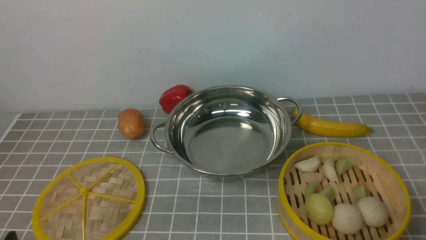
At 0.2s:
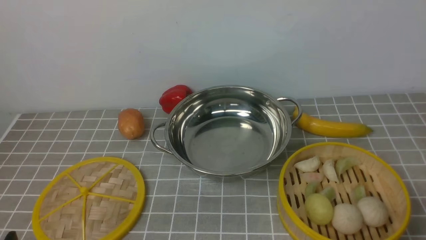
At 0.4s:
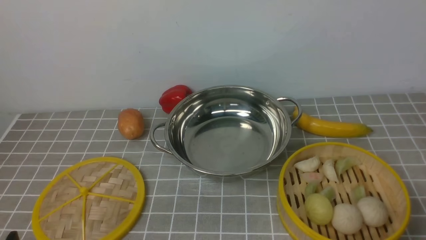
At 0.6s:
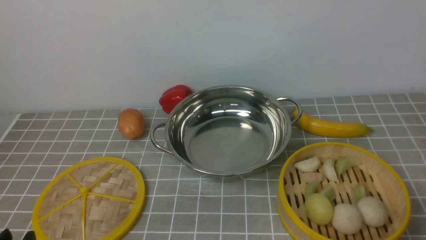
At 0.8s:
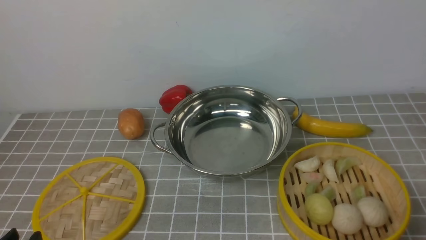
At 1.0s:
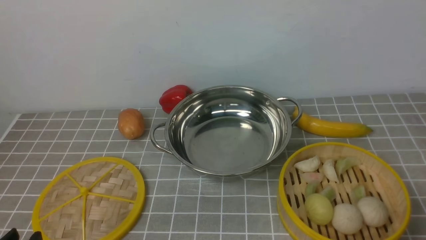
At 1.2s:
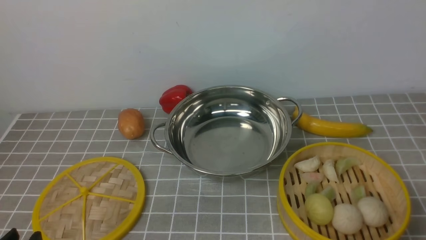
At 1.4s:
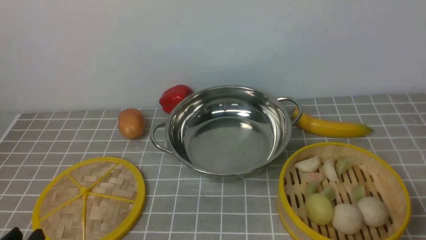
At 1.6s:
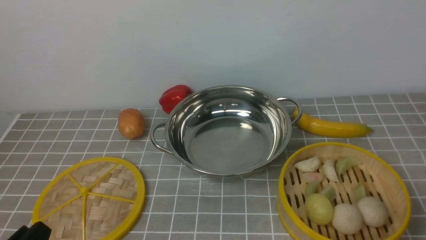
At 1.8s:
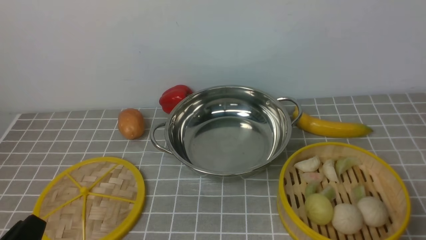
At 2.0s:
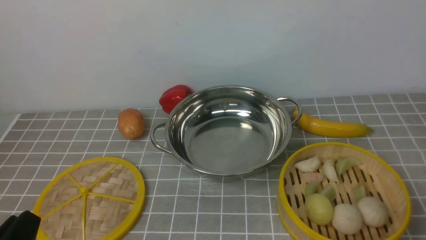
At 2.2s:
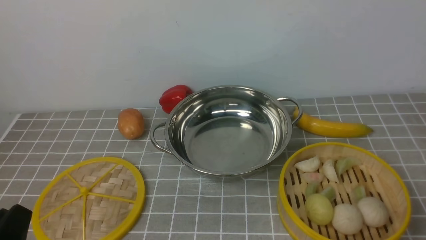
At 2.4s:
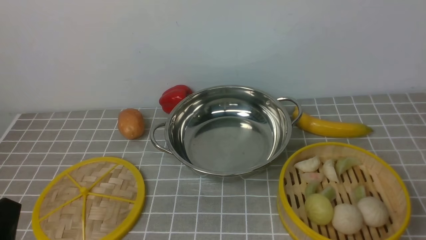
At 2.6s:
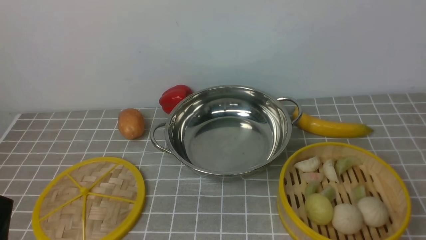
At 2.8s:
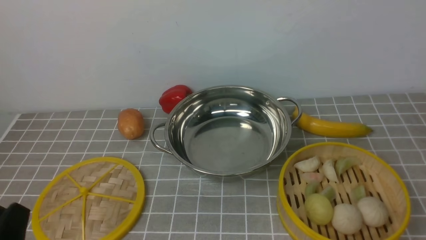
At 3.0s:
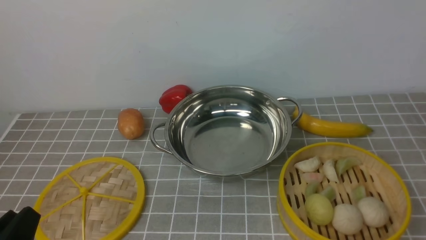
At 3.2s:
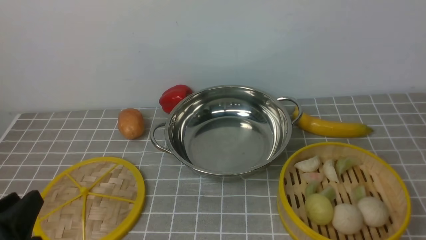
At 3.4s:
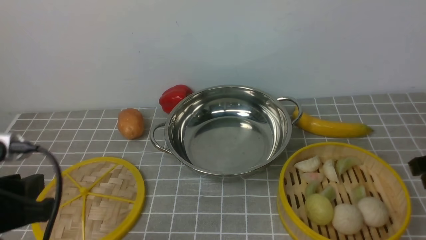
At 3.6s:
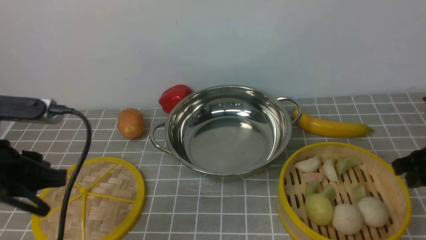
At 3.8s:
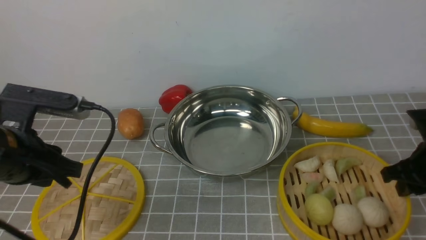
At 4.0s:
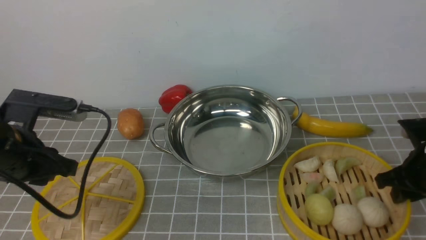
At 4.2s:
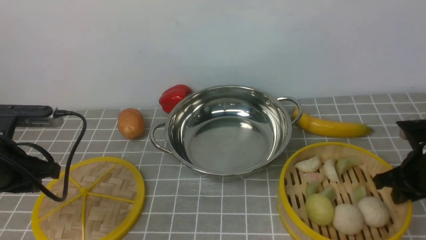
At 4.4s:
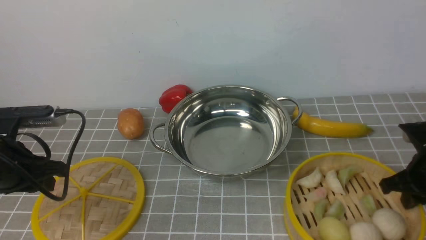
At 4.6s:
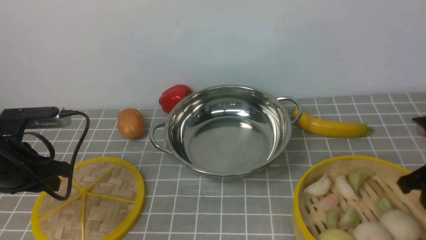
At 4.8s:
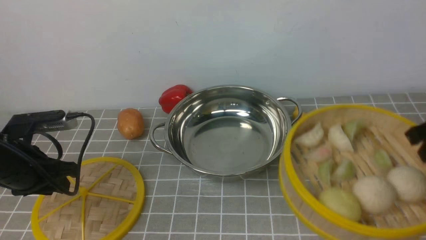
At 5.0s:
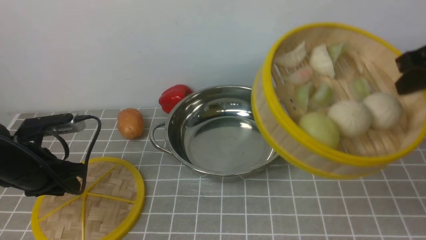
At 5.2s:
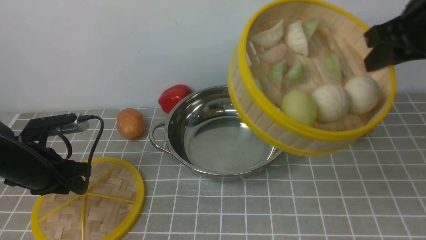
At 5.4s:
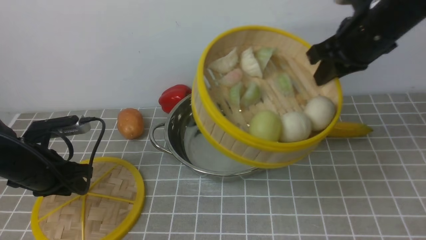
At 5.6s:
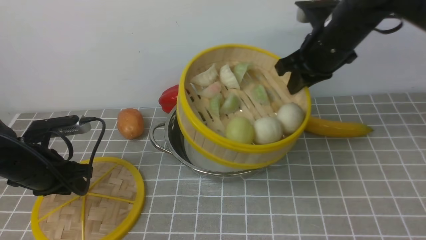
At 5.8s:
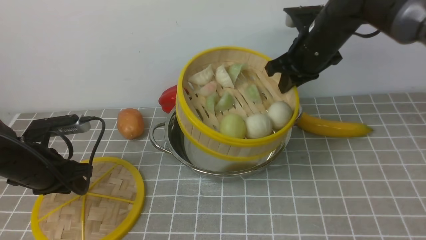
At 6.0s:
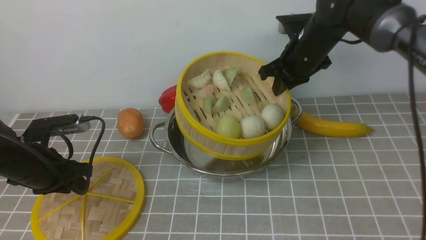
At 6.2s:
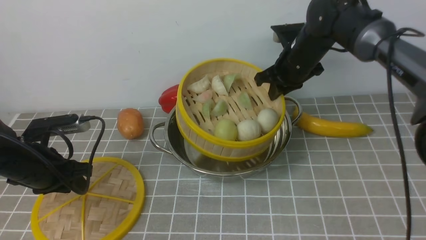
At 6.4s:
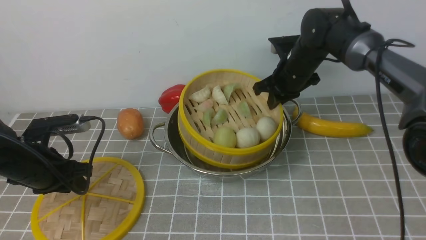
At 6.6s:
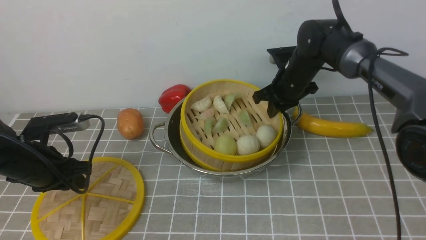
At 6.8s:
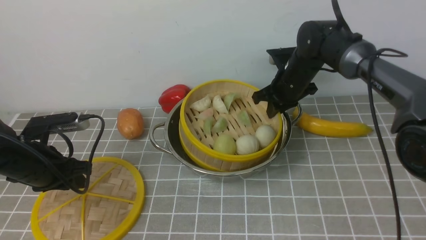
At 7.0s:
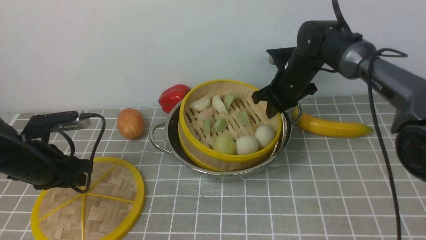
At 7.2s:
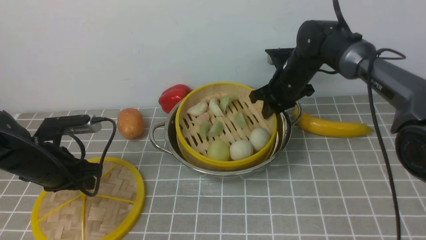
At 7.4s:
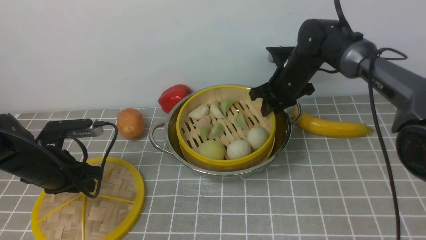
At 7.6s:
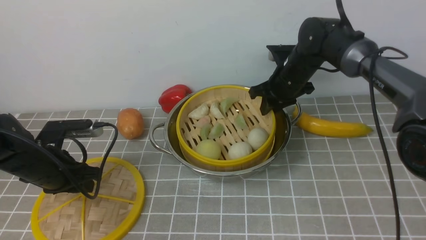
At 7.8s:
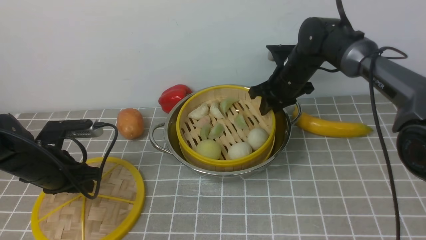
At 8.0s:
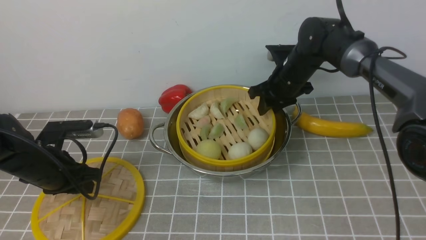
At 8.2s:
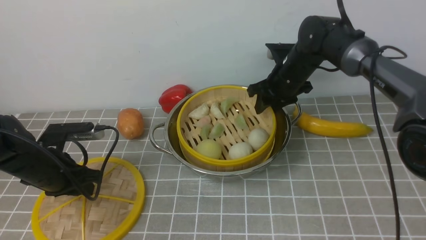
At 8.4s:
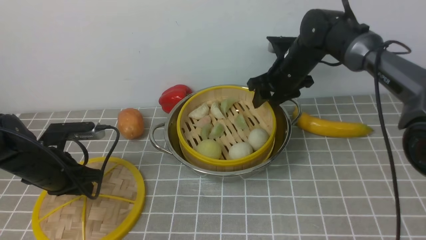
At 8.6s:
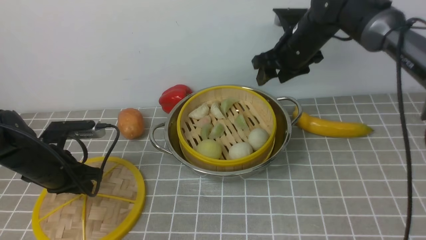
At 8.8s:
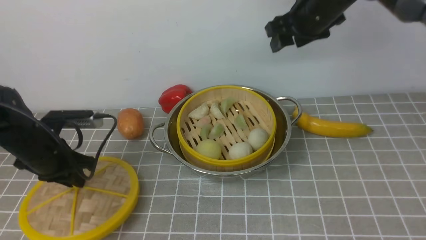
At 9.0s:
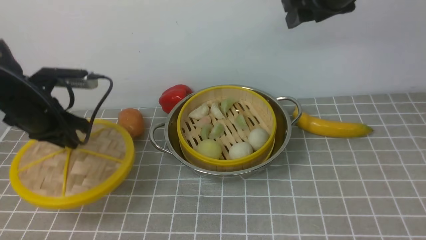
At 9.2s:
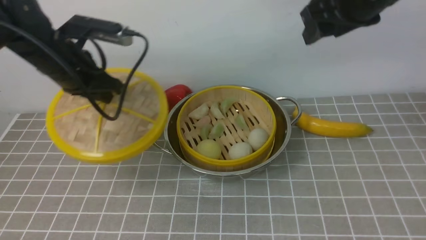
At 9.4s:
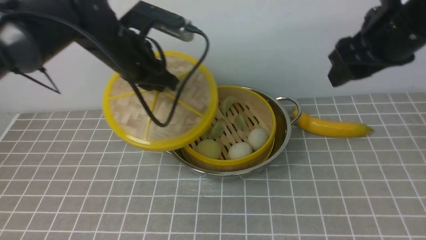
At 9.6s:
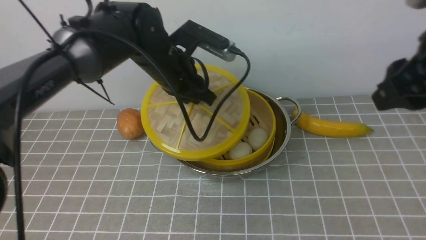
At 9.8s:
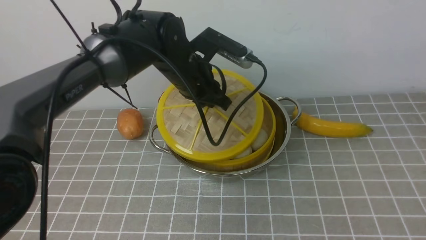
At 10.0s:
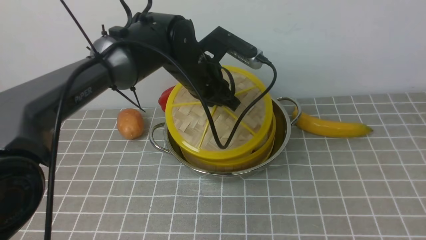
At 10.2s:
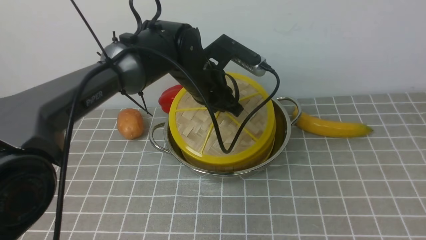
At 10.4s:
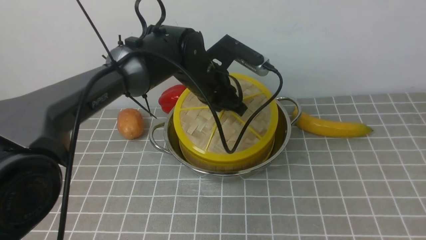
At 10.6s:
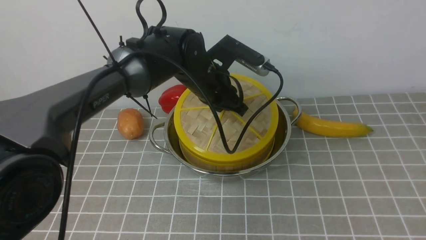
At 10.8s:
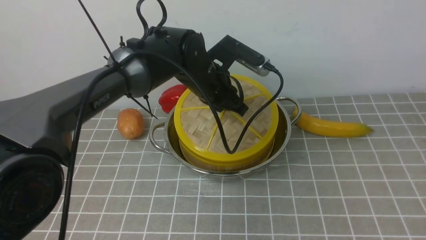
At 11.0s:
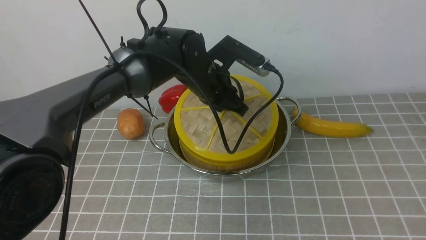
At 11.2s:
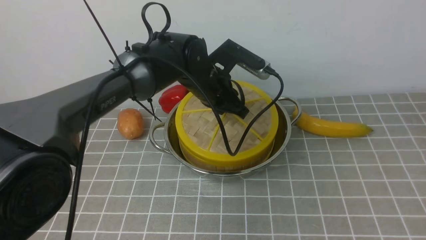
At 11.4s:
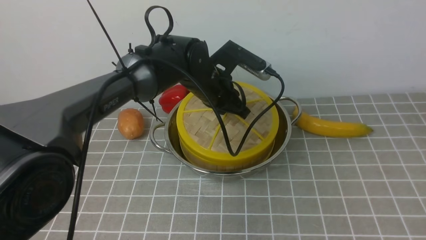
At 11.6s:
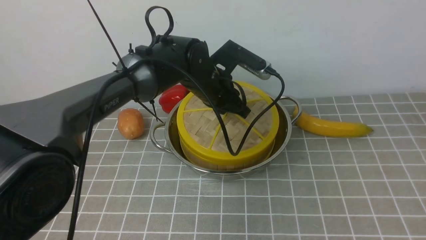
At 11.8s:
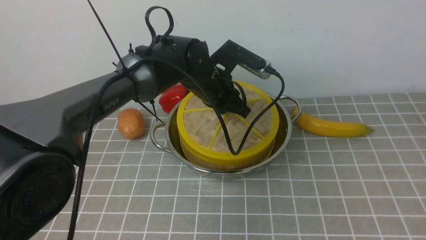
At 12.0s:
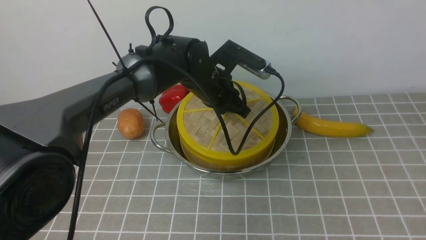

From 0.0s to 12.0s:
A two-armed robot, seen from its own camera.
Task of the whole recording: place the steamer in the pot on the grey tablecloth, and put the lid on the steamer.
Step, from 0.0s to 4.4s: use the right arm to lift the steamer closest to it.
Step, from 4.8s to 8.4s: use the right arm to put the steamer into the iron steamer pot in the middle.
From 3.0s to 4.4s: The left gripper is displaced forward by roughly 20 cm; the right gripper goes about 20 cm downward and forward.
From 4.4s to 6.0s: The left gripper is displaced downward by approximately 5 cm. The right gripper goes about 25 cm forward, to the left and upward.
From 6.0s to 7.6s: The right gripper moves downward, roughly 10 cm.
From 7.6s to 9.0s: The left gripper travels upward by some 5 cm. The right gripper heads upward, covering approximately 15 cm, and opens up.
From 9.0s to 10.4s: The right gripper shifts about 30 cm backward, and closes up. The left gripper is displaced to the right by approximately 25 cm.
From 10.4s to 12.0s: The grippers stay close to where they were, moving slightly.

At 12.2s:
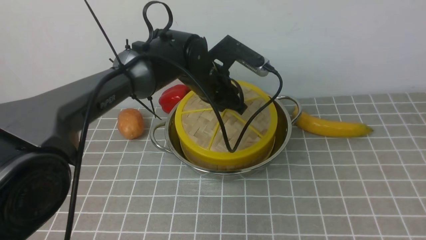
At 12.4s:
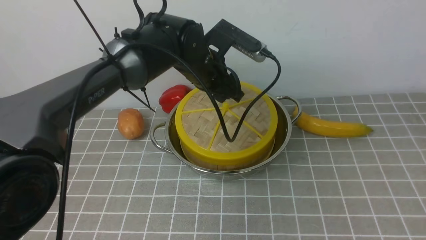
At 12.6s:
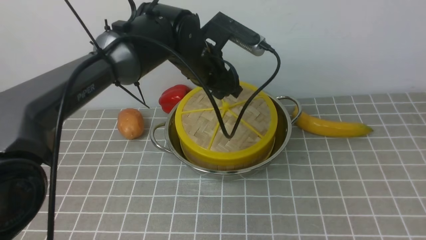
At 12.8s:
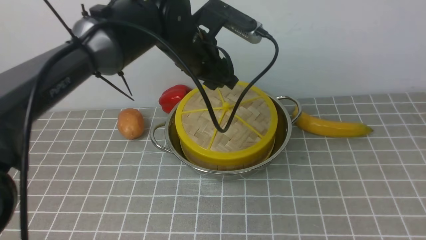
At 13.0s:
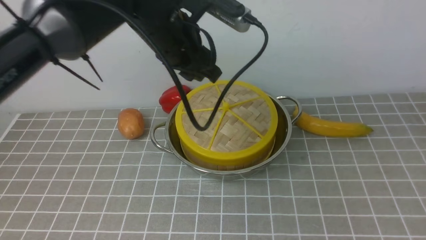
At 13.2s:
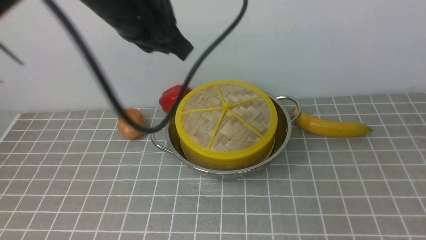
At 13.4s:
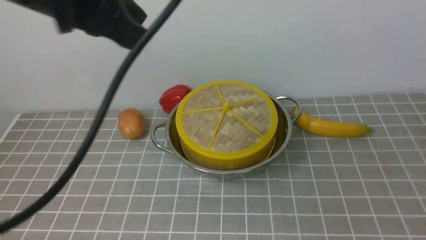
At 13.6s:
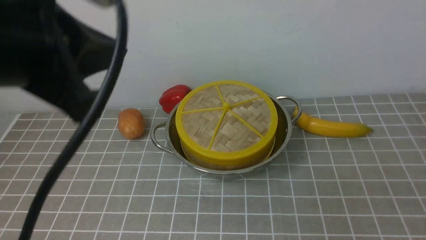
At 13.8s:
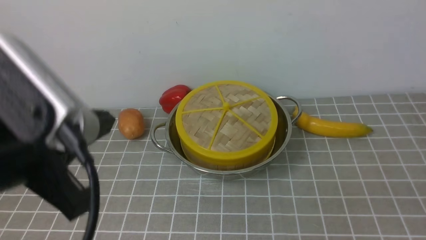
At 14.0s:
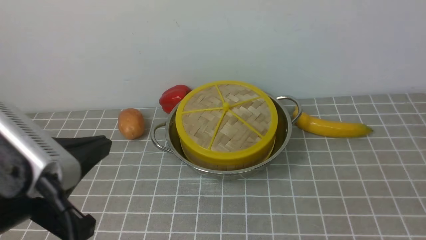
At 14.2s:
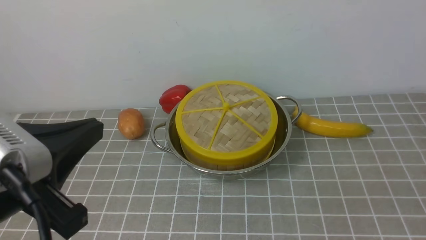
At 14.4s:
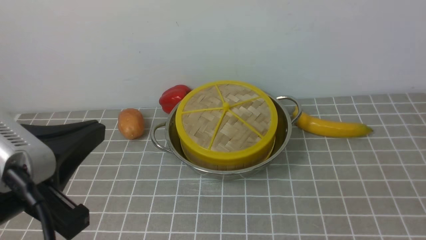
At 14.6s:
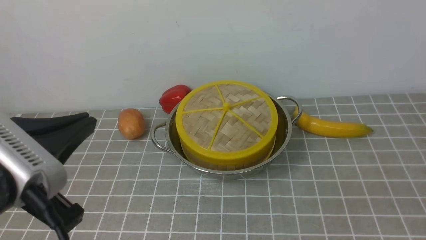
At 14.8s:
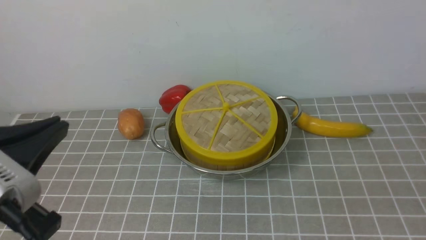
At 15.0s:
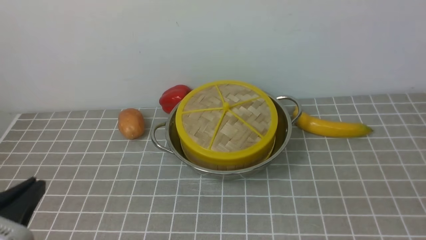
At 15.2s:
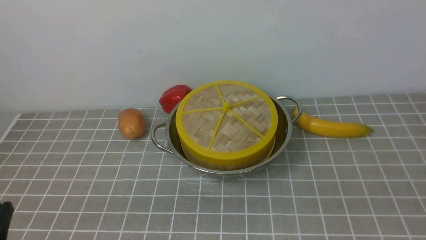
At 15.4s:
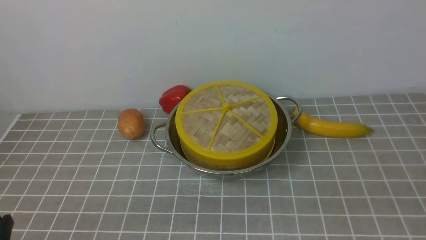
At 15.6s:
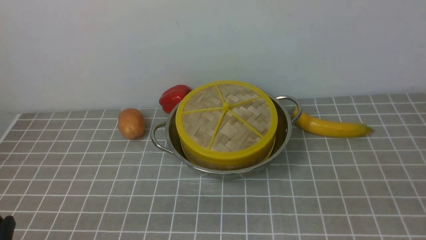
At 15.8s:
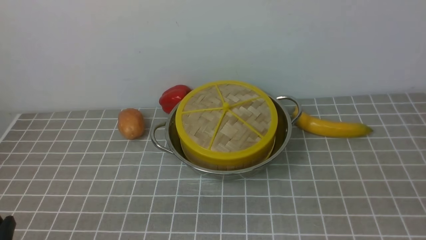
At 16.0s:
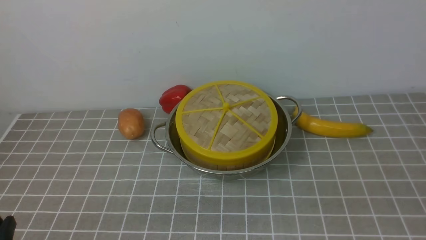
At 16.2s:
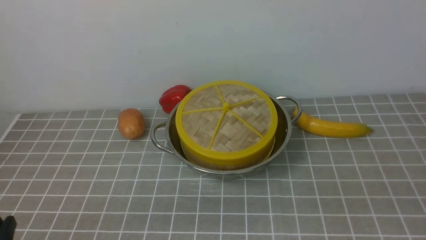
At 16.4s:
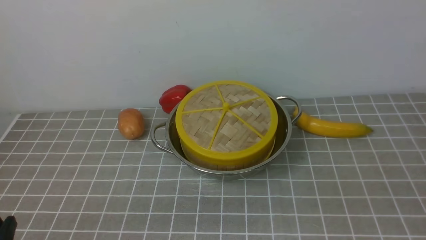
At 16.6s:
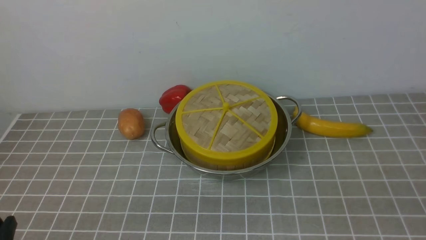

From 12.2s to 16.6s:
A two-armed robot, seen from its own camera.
Task of the whole recording: place the steamer in the pot on the grey tablecloth, and put the lid on the steamer.
From 12.2s to 13.6s: The right gripper is displaced downward and backward by about 10 cm. Meanwhile the left gripper goes about 35 cm backward, upward and to the left, and closes.
From 13.6s to 15.2s: The left gripper moves downward, backward and to the left, approximately 25 cm.
